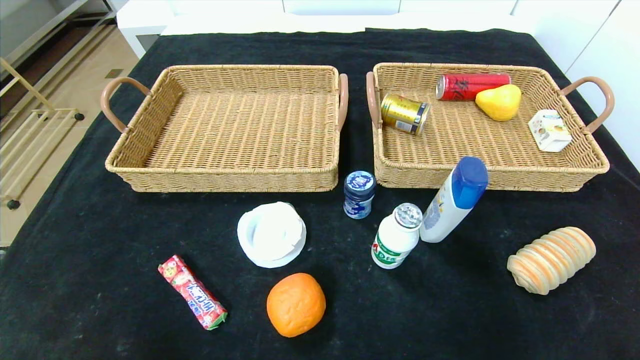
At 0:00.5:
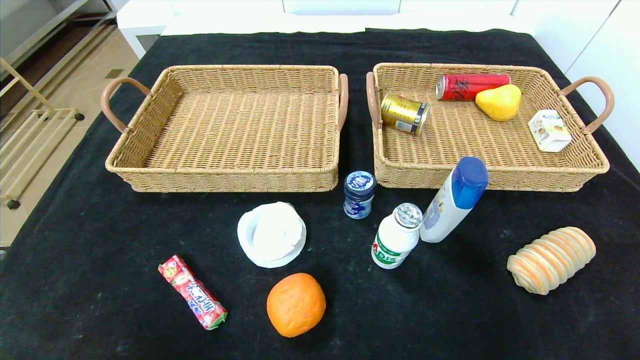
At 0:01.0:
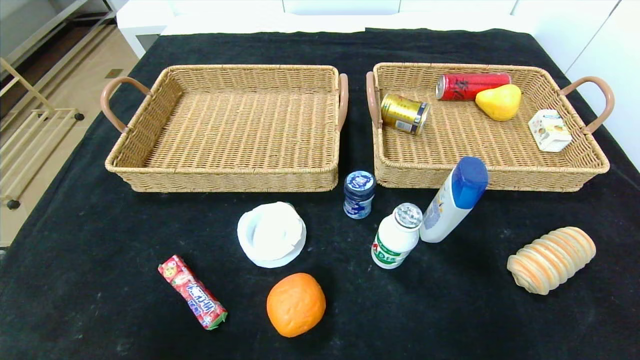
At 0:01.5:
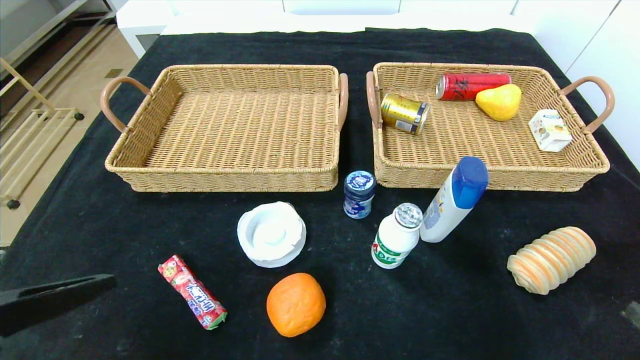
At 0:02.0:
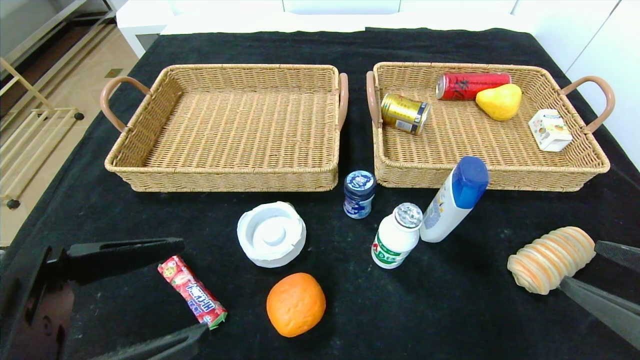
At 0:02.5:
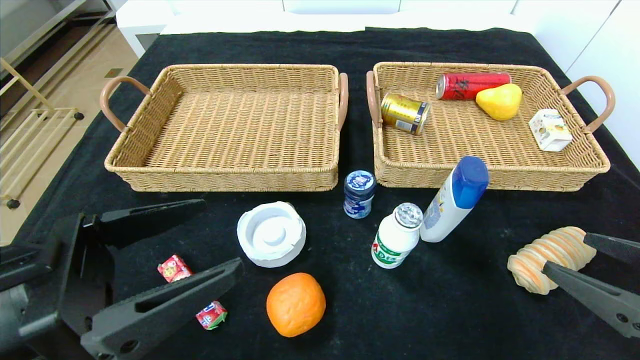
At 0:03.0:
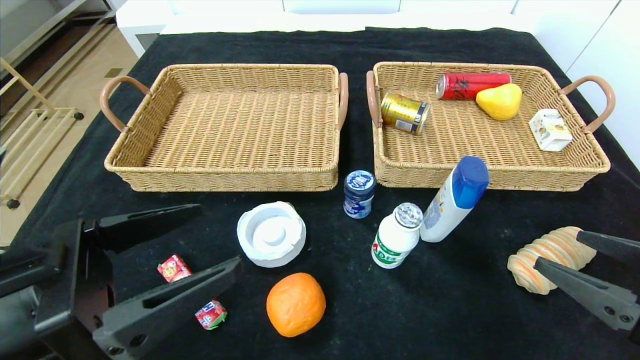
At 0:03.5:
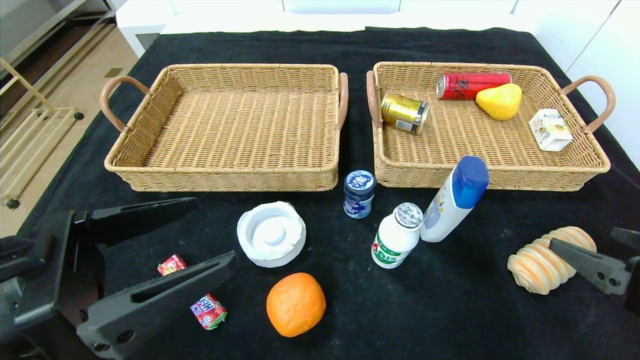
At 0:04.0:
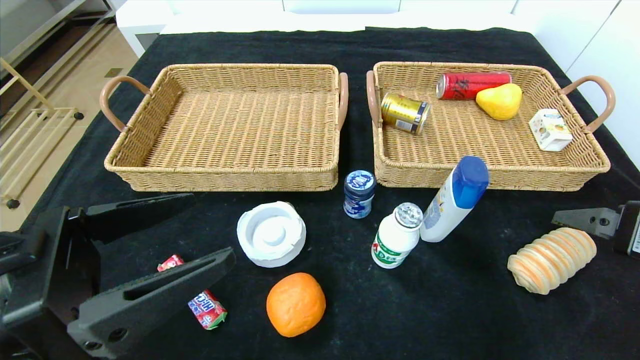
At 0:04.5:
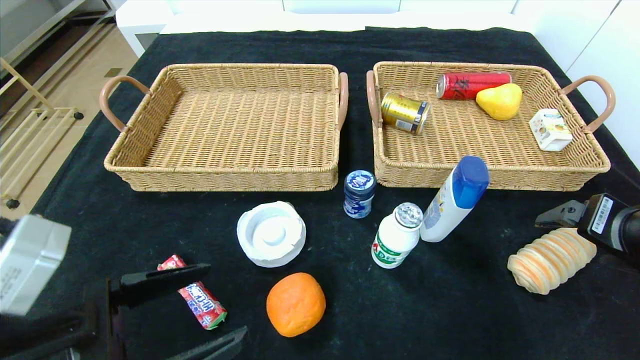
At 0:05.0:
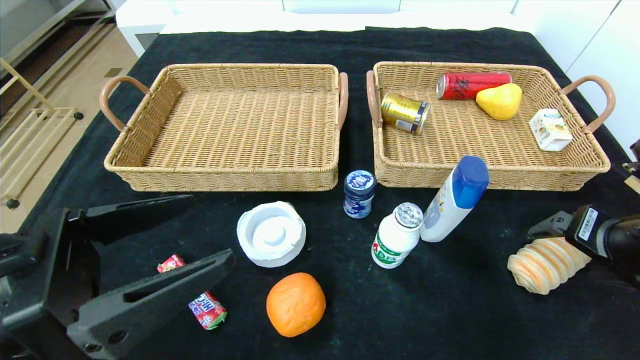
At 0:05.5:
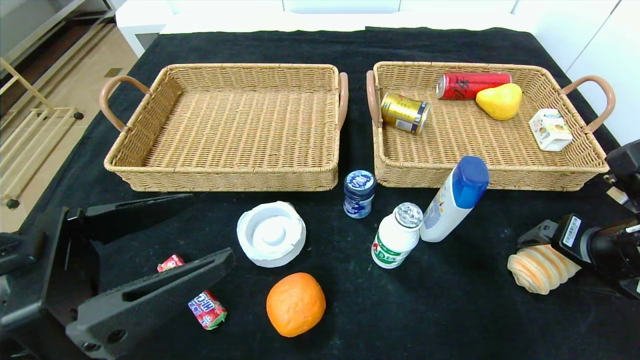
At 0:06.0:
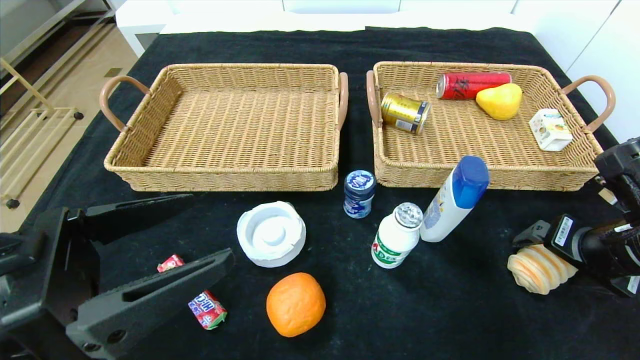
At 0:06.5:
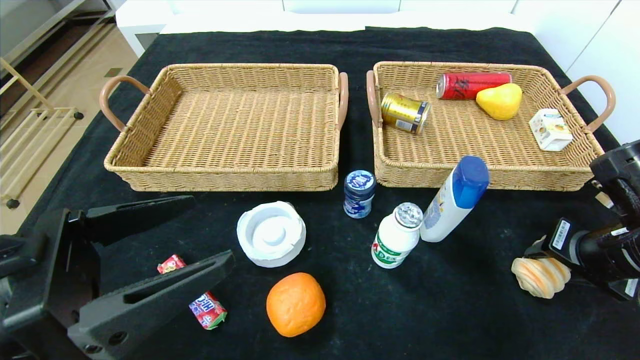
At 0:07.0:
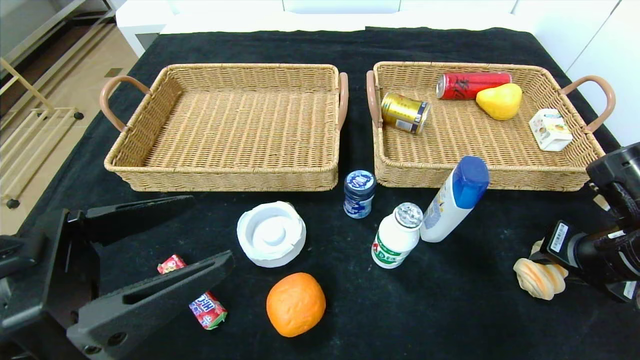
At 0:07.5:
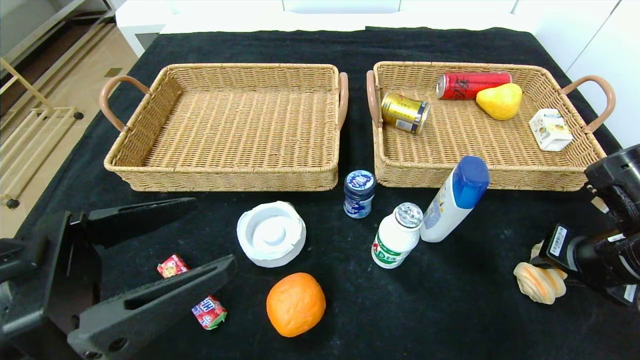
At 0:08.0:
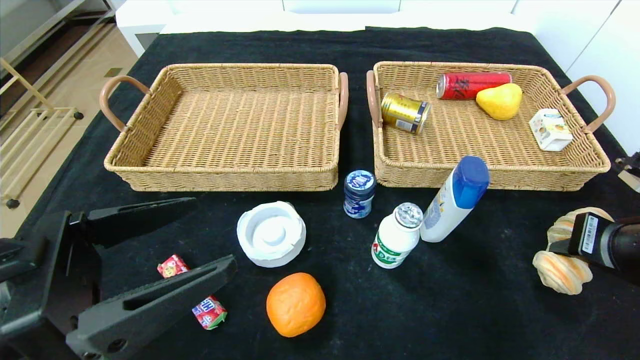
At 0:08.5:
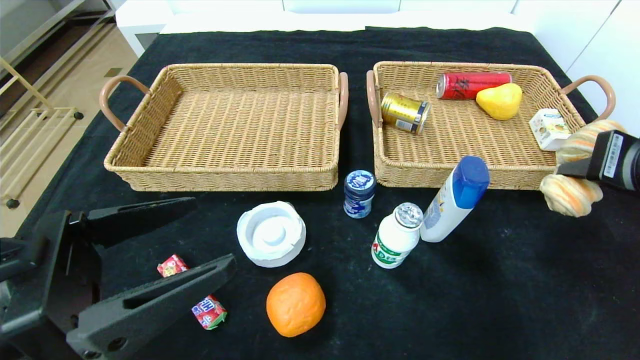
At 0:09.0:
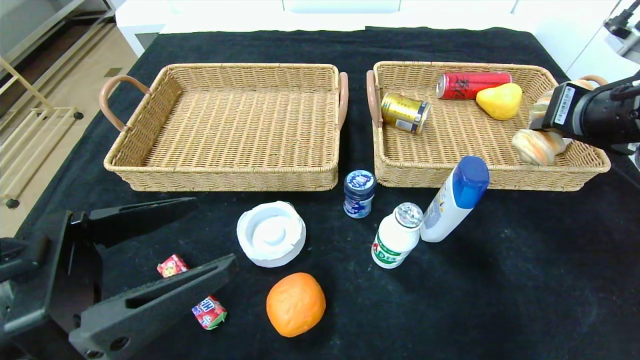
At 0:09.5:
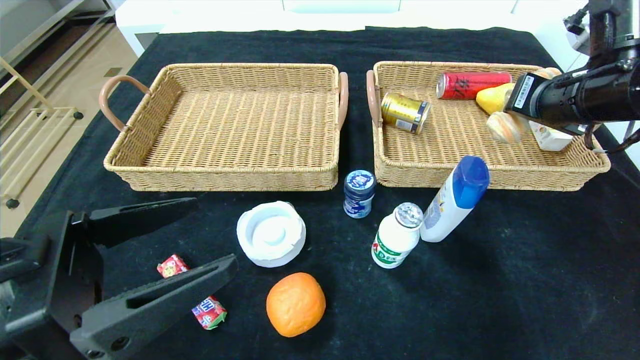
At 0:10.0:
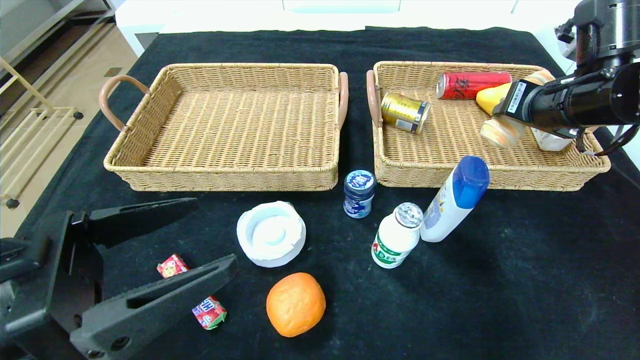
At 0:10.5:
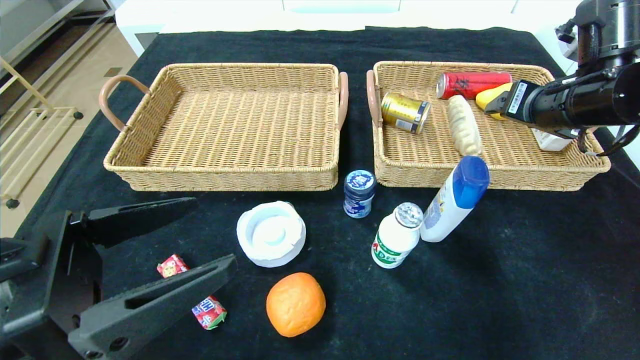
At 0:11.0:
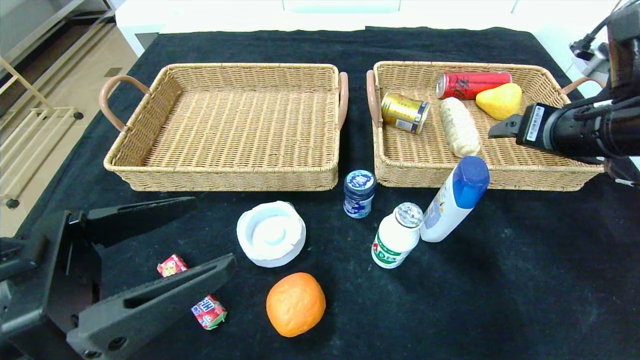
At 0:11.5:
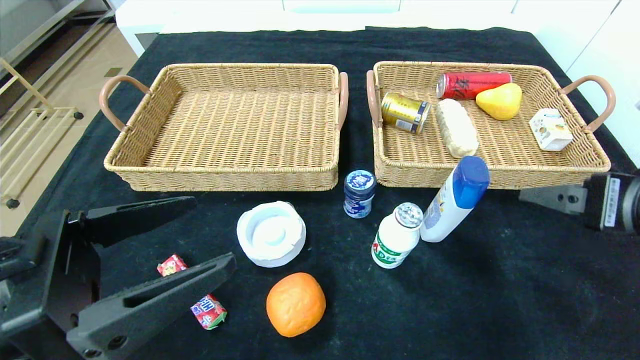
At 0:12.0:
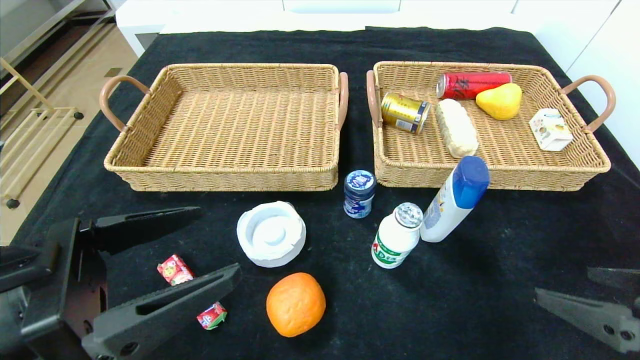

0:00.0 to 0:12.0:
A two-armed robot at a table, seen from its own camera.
Step, 0:00.0 to 0:10.0: Grasp the long bread and put it in the right basket.
0:00.0 to 0:02.0: The right gripper shifts about 20 cm upward and forward. Meanwhile the left gripper moves upward, forward and to the right, approximately 20 cm.
0:02.0 to 0:04.0: The right gripper is displaced forward by some 5 cm.
0:04.0 to 0:06.0: The right gripper is displaced forward by some 5 cm.
0:06.0 to 0:08.0: The right gripper closes.
0:08.0 to 0:10.0: The right gripper heads forward and upward, covering roughly 15 cm, and opens its fingers.
0:10.0 to 0:12.0: The right gripper travels backward by roughly 25 cm, and opens its fingers.

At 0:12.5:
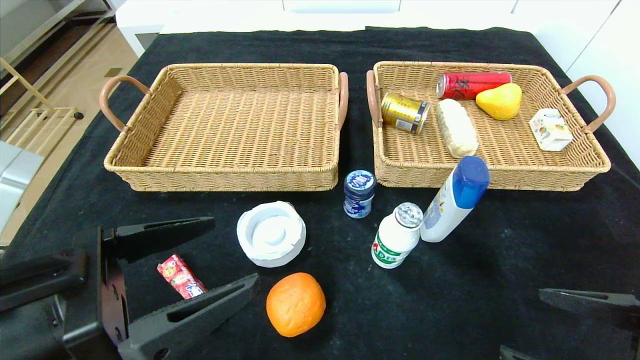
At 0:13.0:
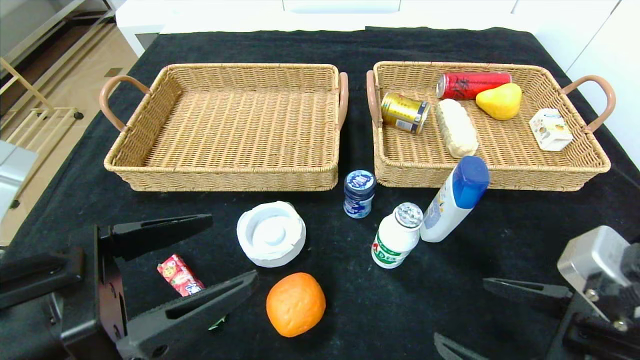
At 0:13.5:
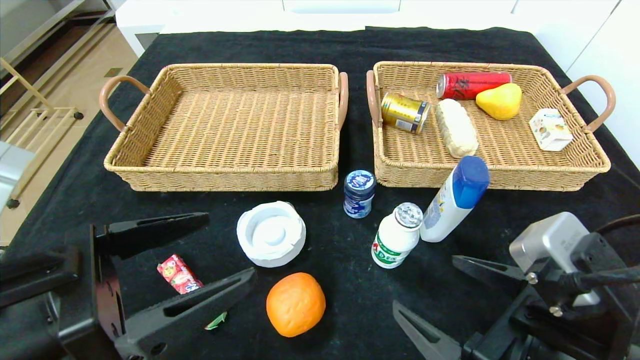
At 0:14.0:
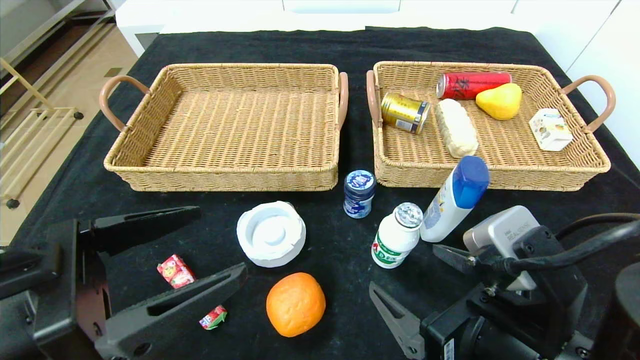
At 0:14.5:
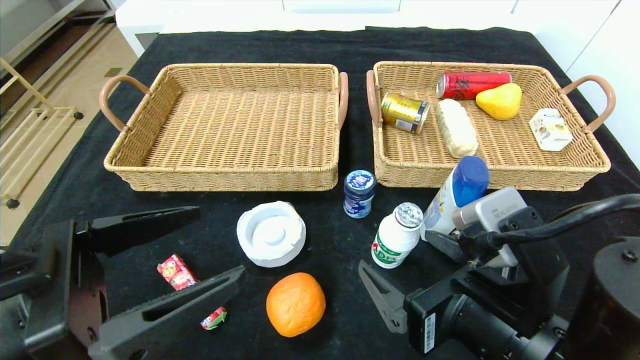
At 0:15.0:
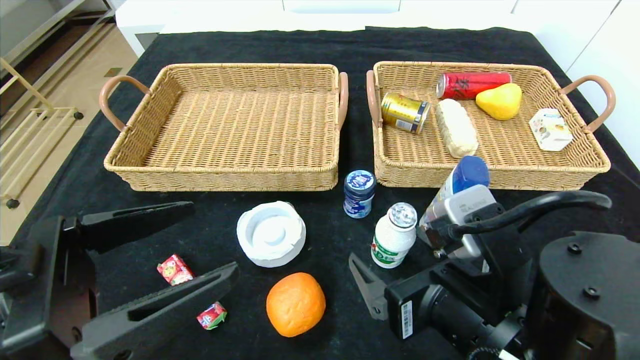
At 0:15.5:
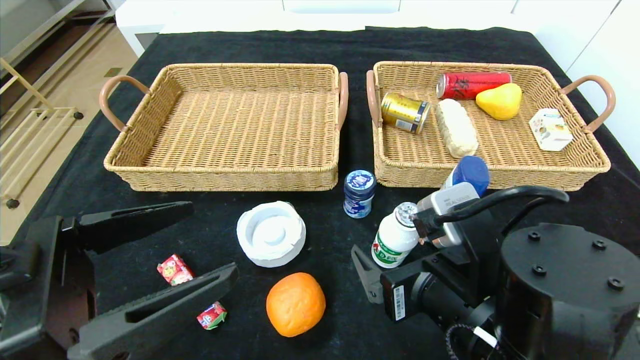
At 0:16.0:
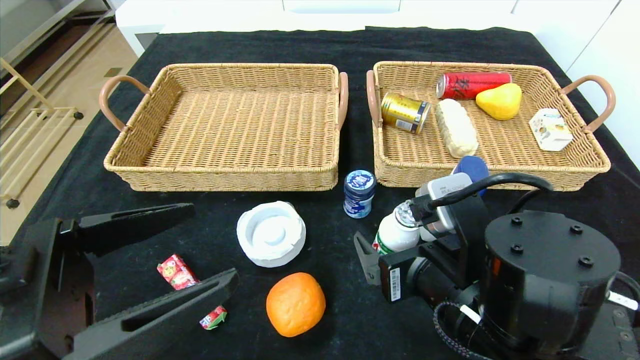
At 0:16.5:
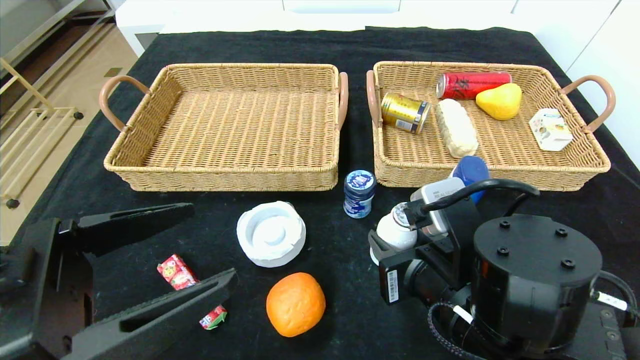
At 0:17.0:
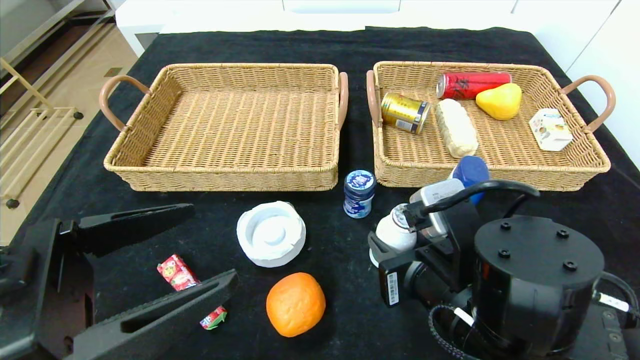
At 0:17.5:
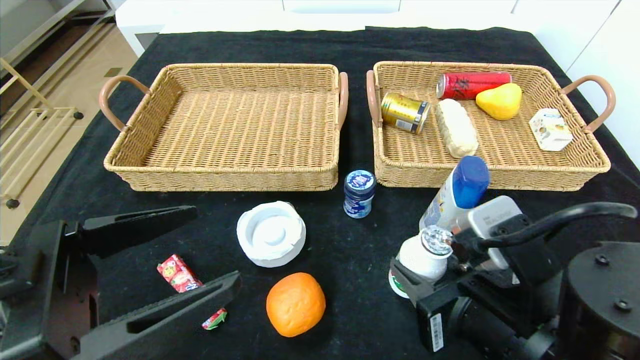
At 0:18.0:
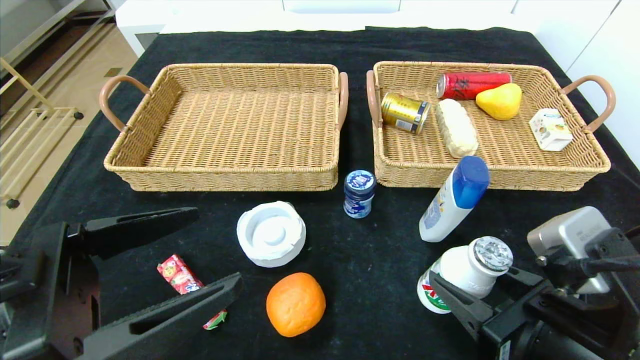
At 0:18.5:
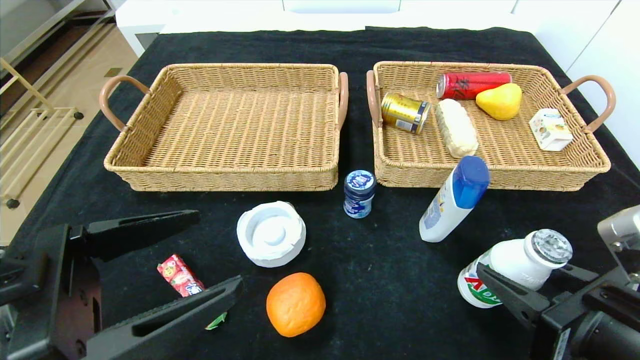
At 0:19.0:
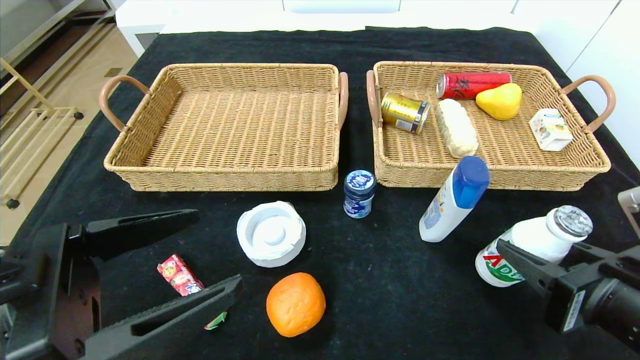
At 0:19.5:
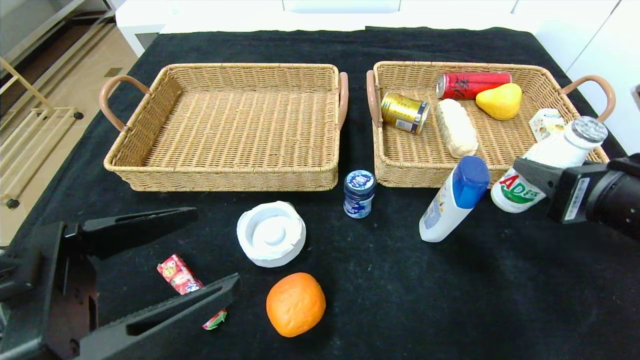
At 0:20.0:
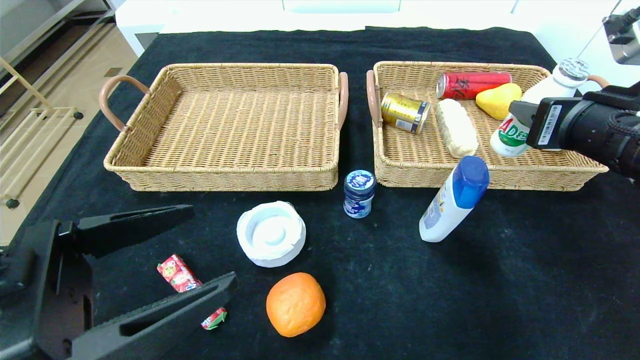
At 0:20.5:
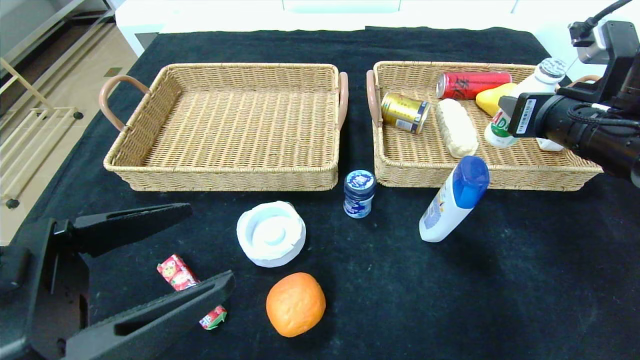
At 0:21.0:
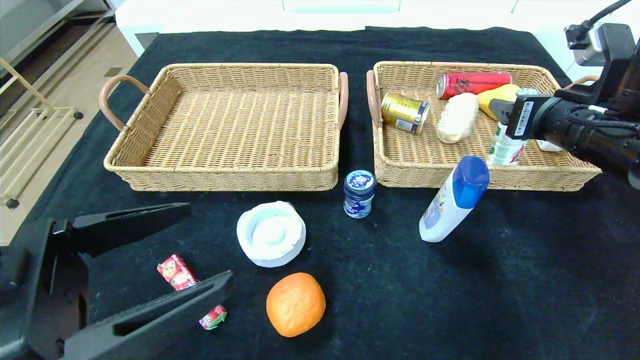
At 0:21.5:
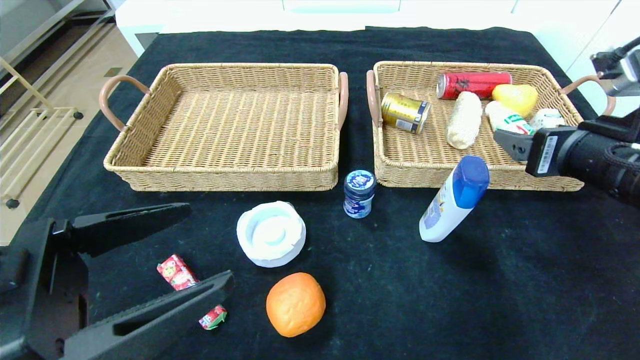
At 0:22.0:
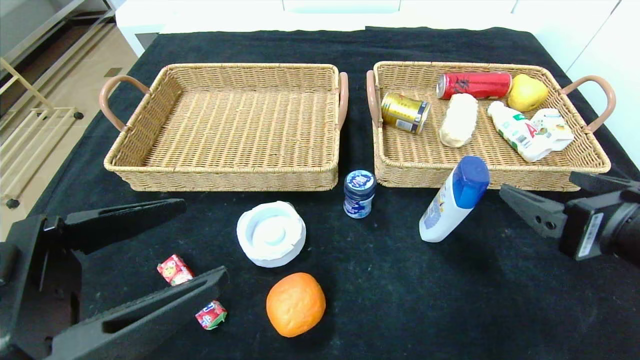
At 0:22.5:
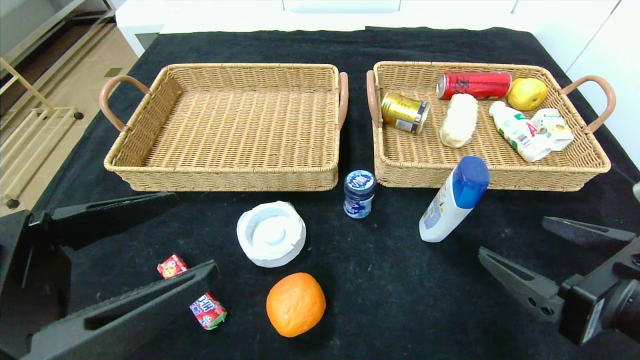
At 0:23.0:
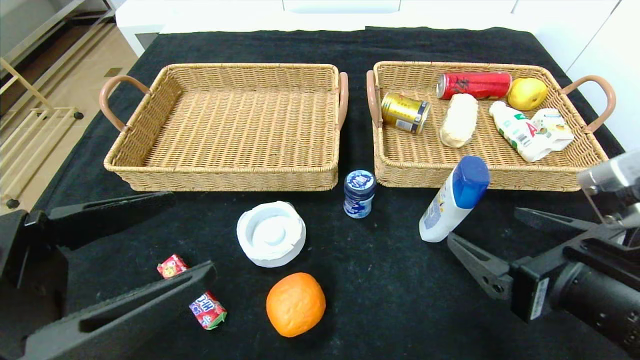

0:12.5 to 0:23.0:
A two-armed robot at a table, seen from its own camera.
Step, 0:12.5 to 0:21.0: Grasp the ad milk and put it in the right basket.
0:12.5 to 0:14.5: The right gripper travels to the left by approximately 10 cm.
0:14.5 to 0:16.5: The right gripper moves approximately 5 cm, and closes its fingers.
0:16.5 to 0:19.0: The right gripper heads to the right, covering roughly 15 cm.
0:19.0 to 0:21.0: The right gripper goes some 20 cm forward and upward, and opens.
0:21.0 to 0:23.0: The right gripper is displaced backward and downward by roughly 15 cm.
